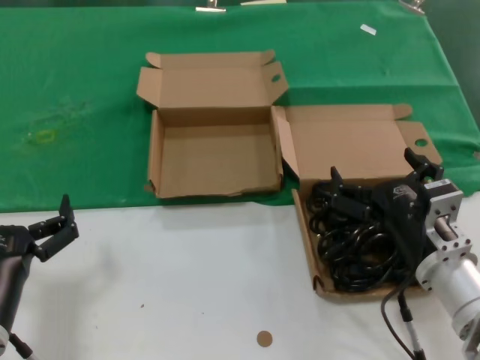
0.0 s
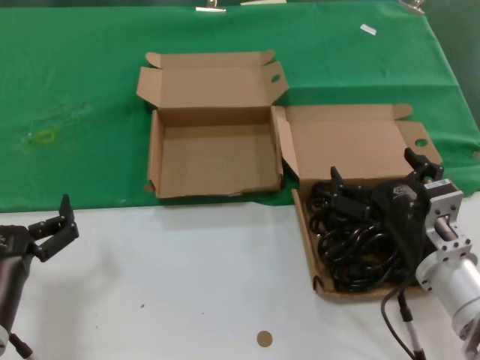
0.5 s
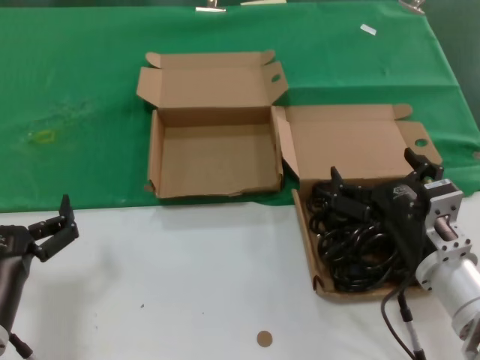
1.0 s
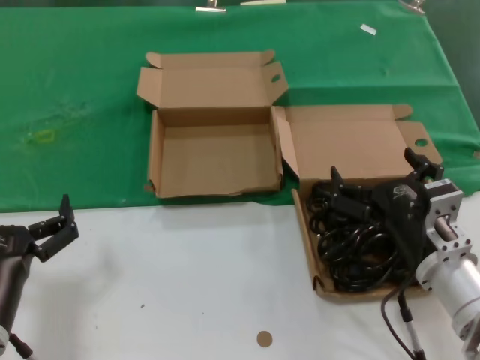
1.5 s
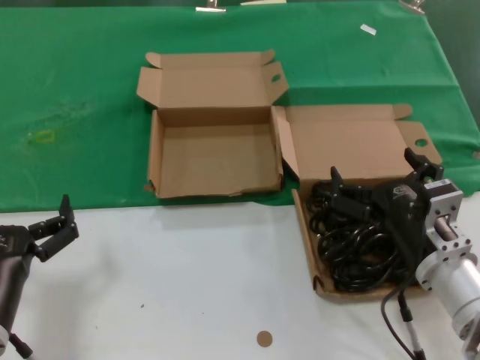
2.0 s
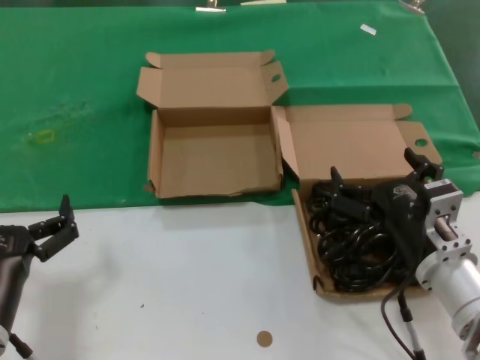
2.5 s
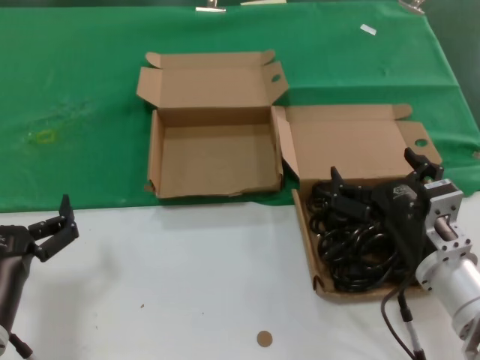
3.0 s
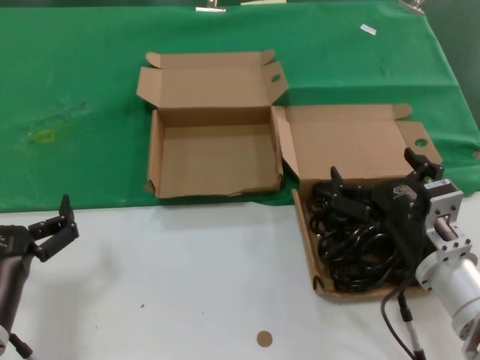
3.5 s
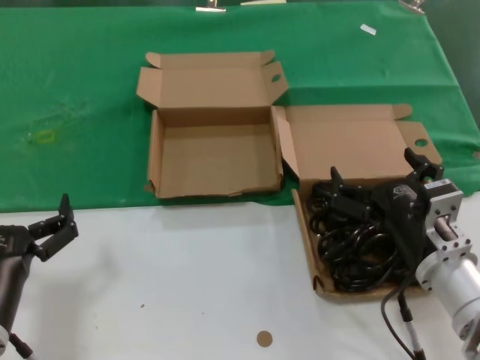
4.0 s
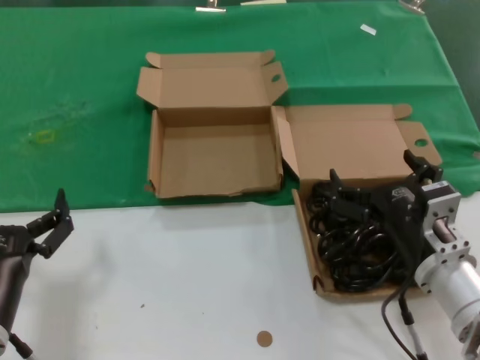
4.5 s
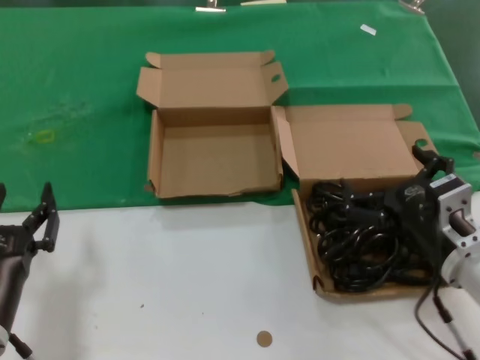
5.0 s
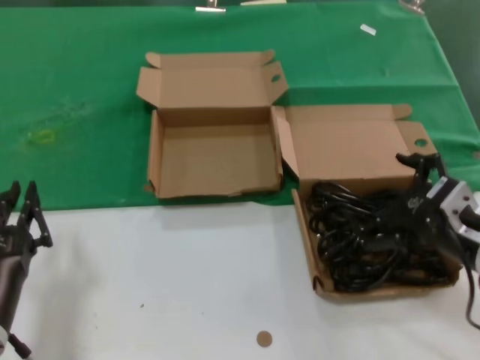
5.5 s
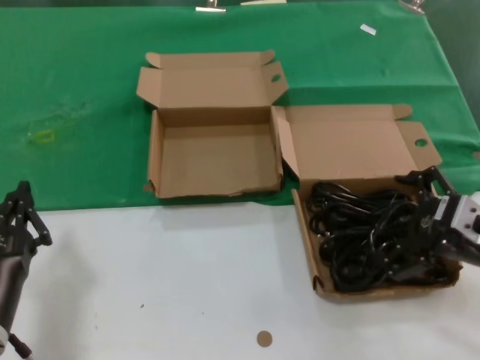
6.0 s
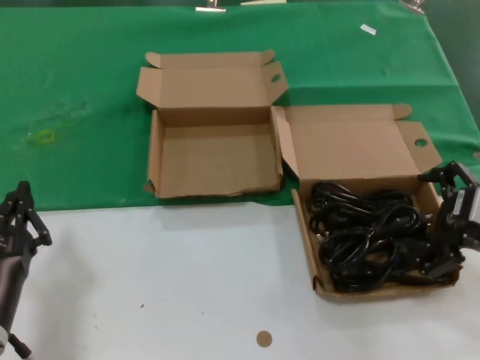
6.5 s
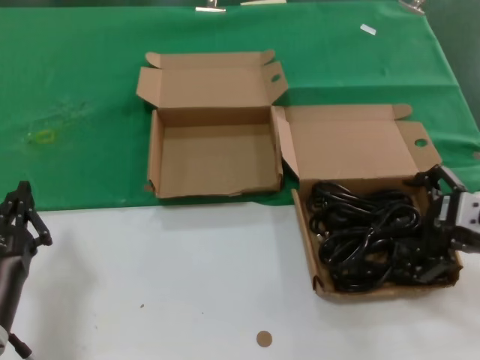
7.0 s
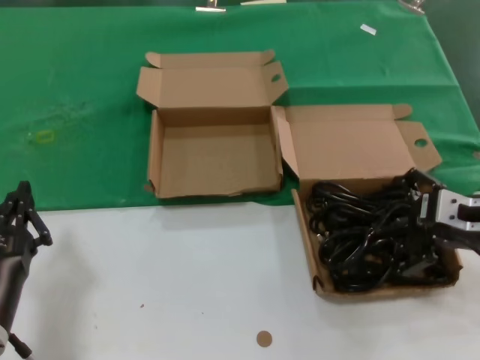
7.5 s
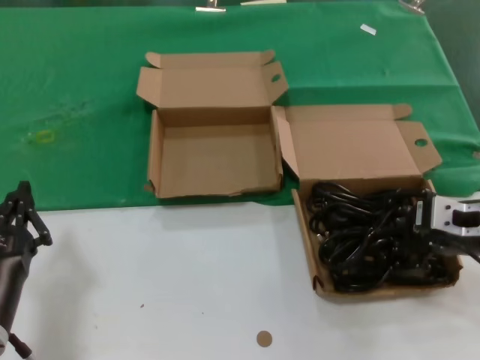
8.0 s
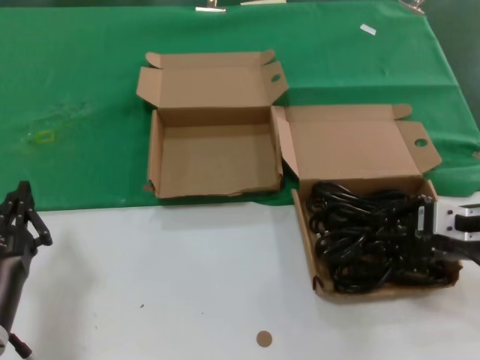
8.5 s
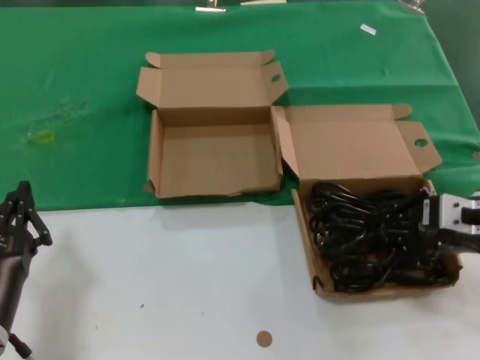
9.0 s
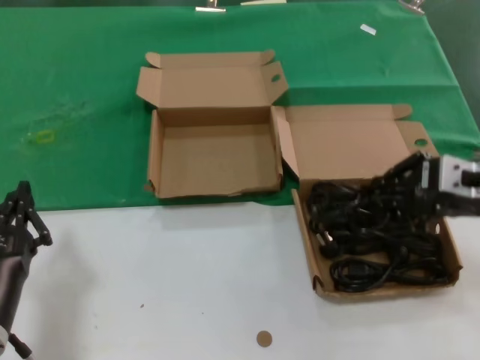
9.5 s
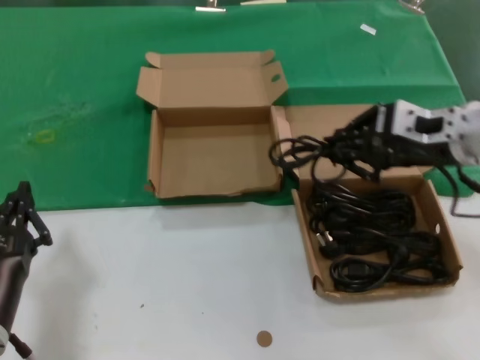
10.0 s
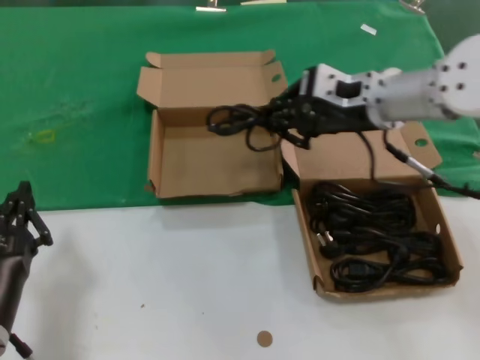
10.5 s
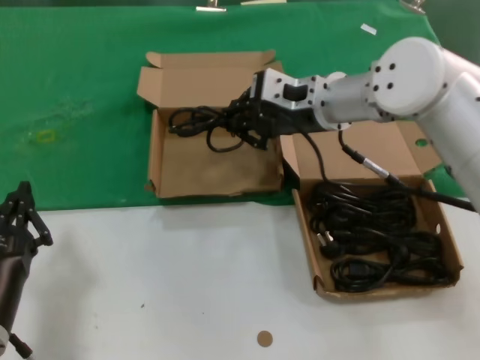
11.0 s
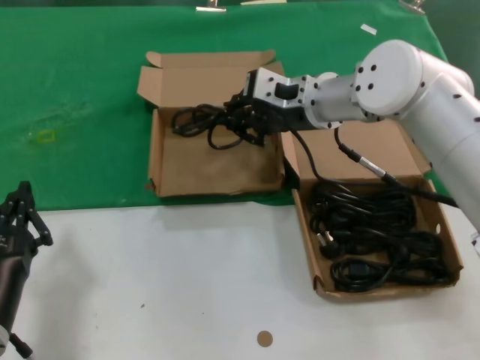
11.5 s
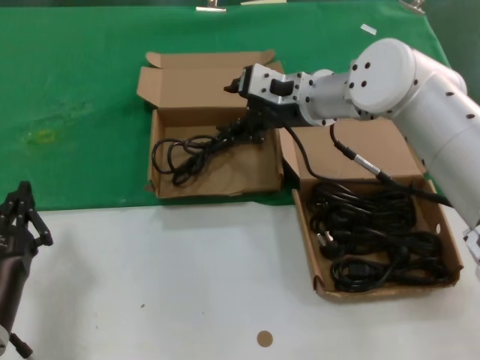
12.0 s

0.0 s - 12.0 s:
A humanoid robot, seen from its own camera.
Task of the whole recording: take the parts from the box containing them and put them into an empty box.
Step, 0.0 s - 8.0 s: Grasp the data cable.
Step, 8.5 s - 11.5 s: Place the data cable in the another box.
0.0 s - 4.0 s: Both hands stay put.
4.0 s - 6.0 s: The right hand shifts about 10 cm to the right and upward.
6.0 s - 8.0 s: The right hand shifts by roughly 5 cm.
8.0 s - 10.0 s: The right hand heads upward and forward, covering some 10 cm.
10.0 s - 12.0 s: The right hand is displaced to the left and forward by approximately 20 cm.

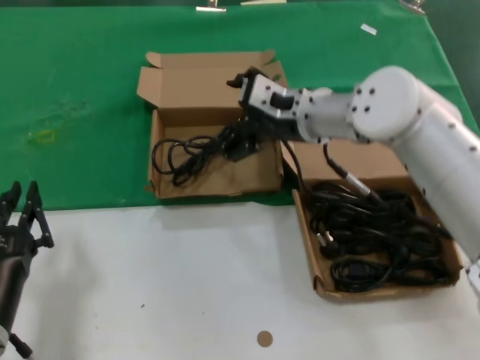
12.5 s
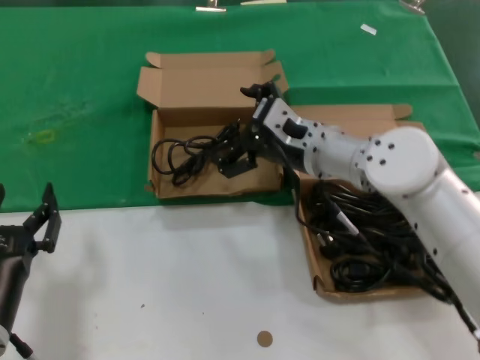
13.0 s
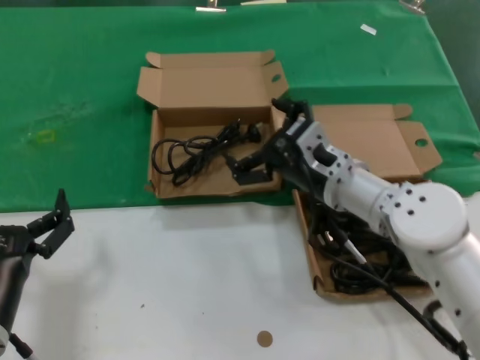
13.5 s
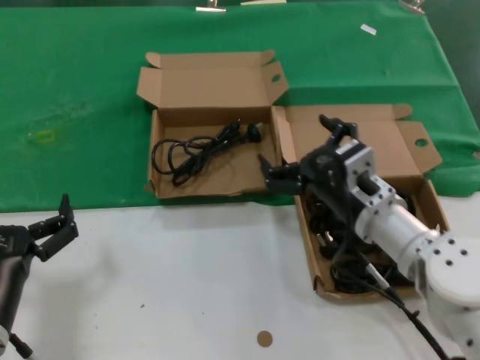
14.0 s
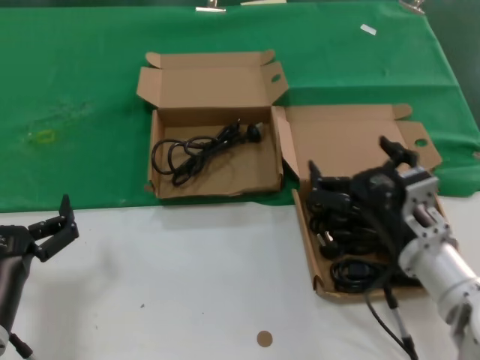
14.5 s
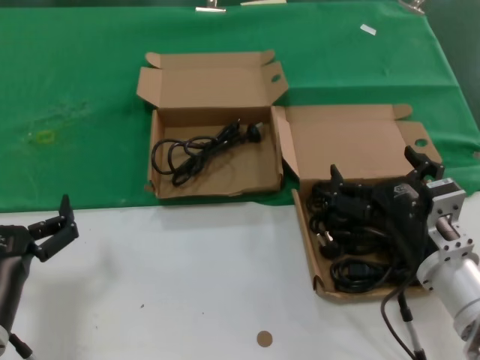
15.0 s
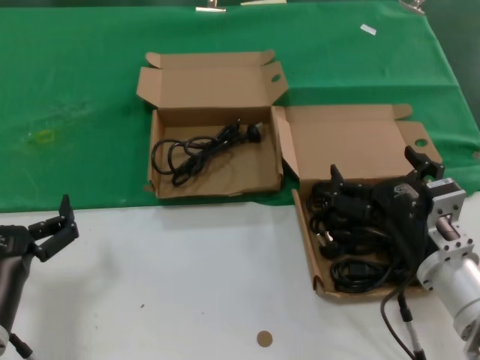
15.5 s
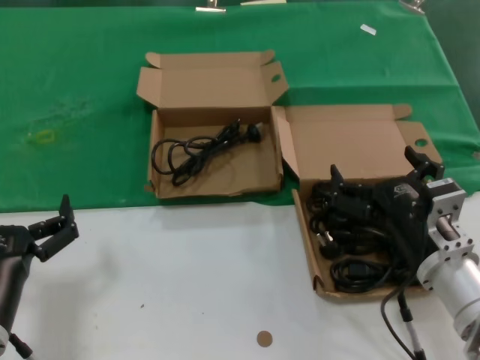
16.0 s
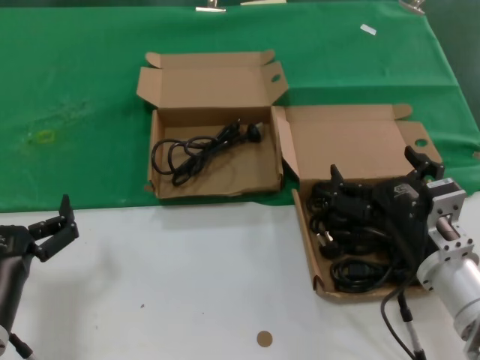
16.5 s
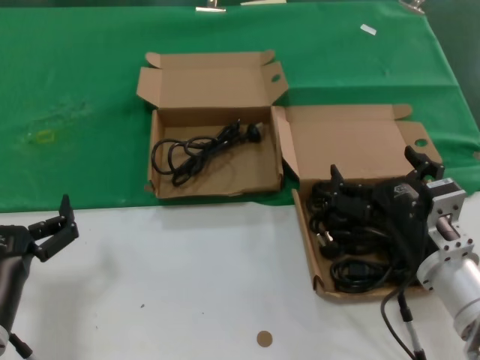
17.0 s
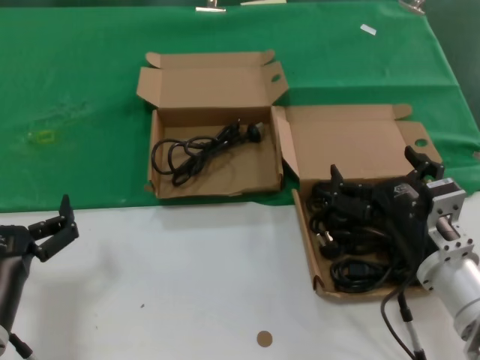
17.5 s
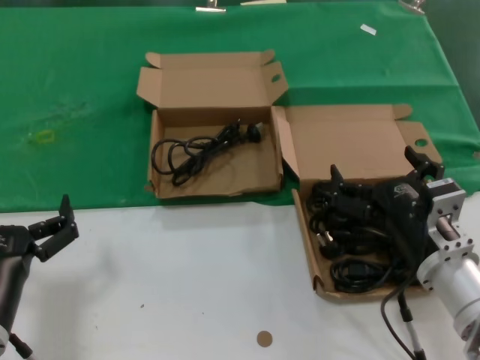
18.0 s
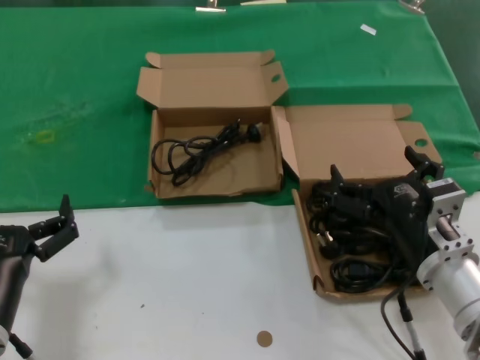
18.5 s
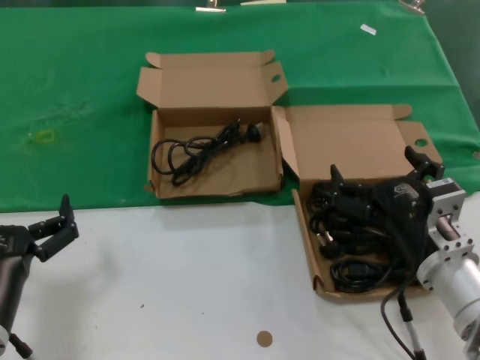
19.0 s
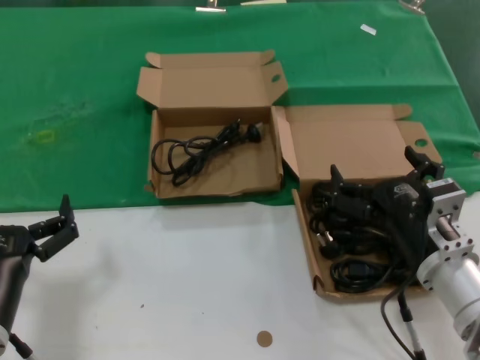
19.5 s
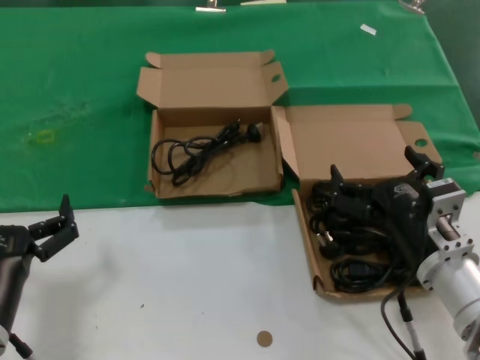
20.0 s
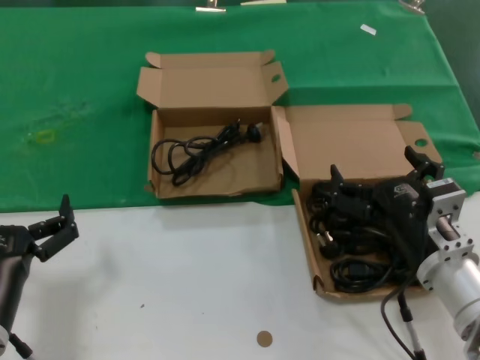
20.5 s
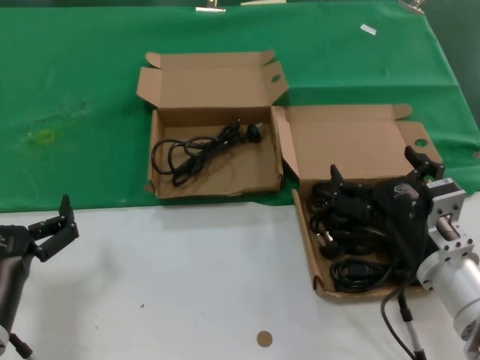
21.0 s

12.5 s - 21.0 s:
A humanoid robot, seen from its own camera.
Task of the whole recording: take the parts from the box containing them and put them into an empty box.
12.5 s - 14.5 s: The right hand is displaced backward, downward and to the right by some 25 cm.
14.5 s - 16.5 s: The hands make only small movements.
16.5 s - 21.0 s: The two hands keep their place.

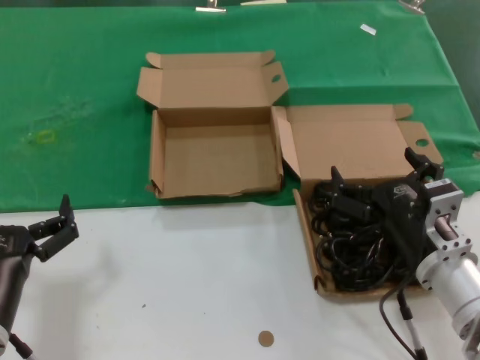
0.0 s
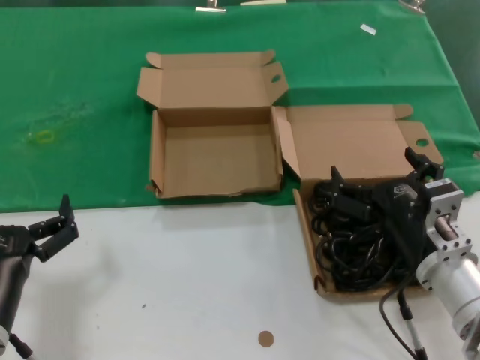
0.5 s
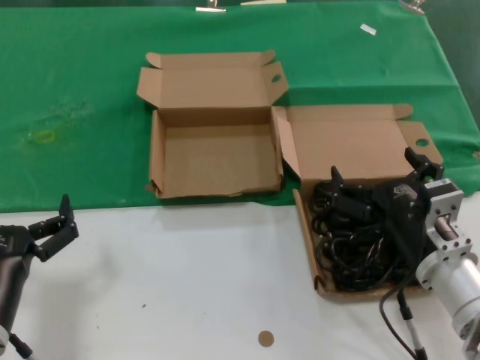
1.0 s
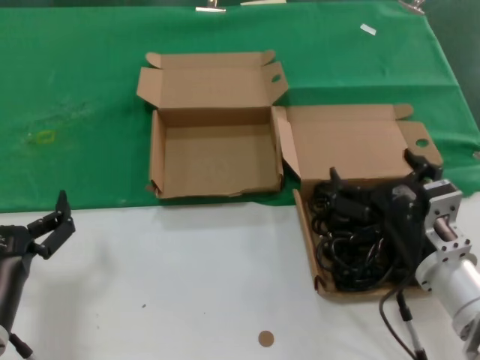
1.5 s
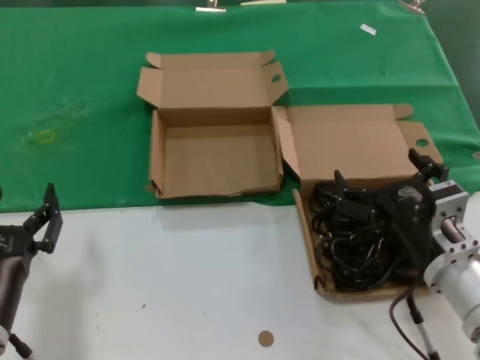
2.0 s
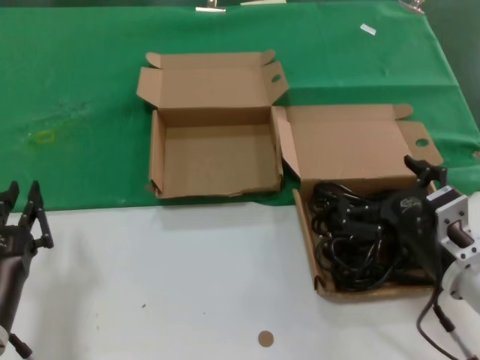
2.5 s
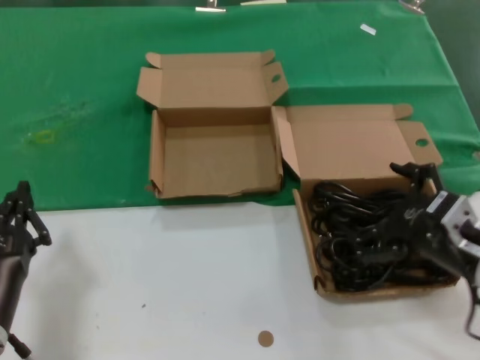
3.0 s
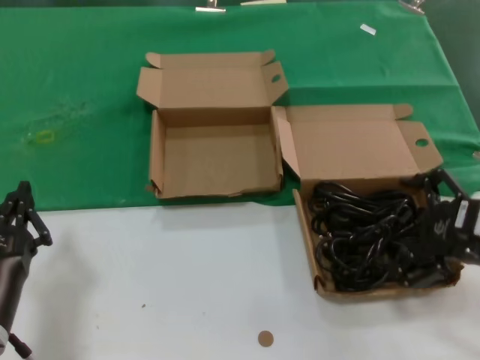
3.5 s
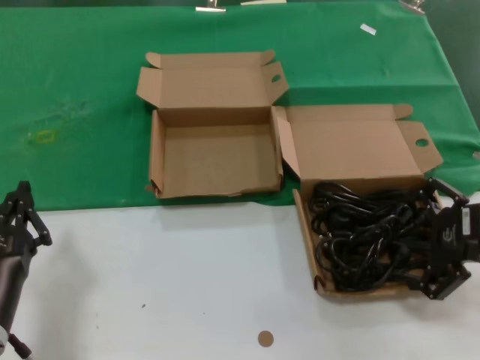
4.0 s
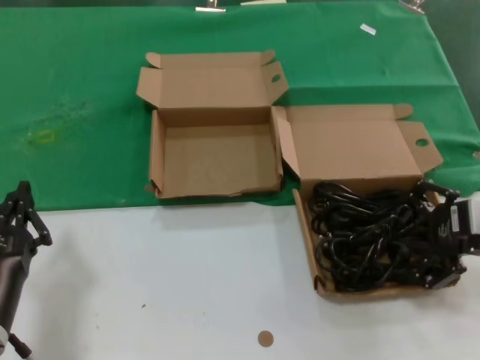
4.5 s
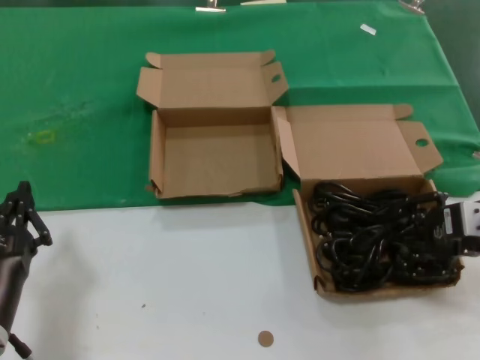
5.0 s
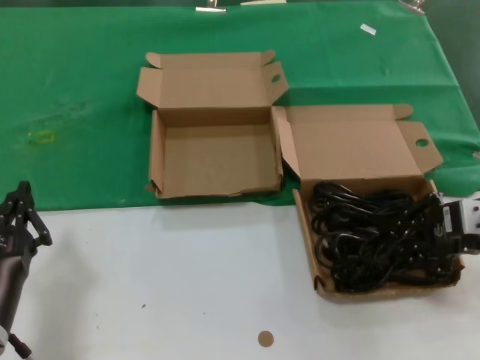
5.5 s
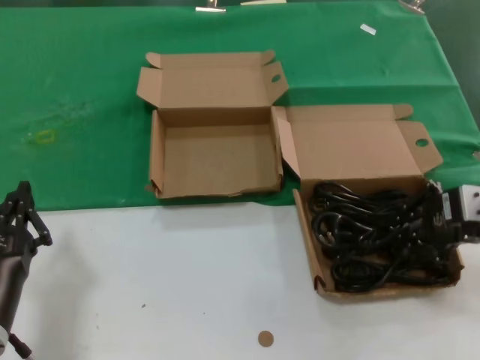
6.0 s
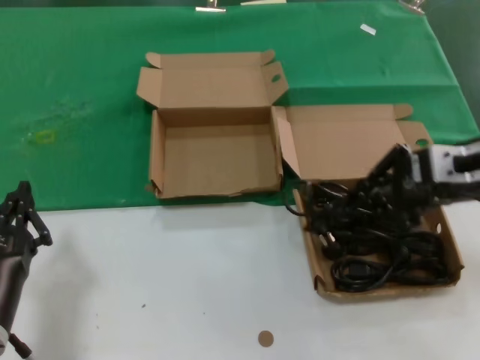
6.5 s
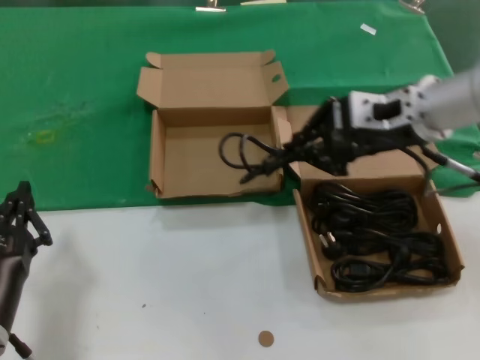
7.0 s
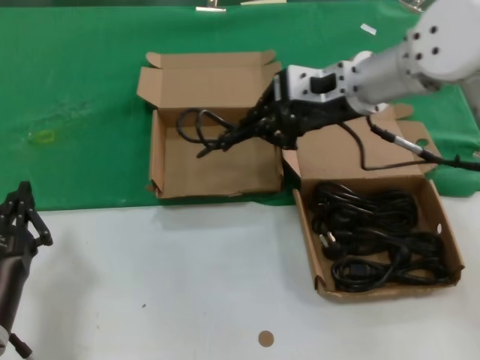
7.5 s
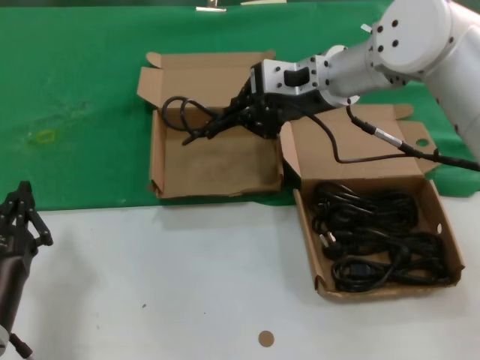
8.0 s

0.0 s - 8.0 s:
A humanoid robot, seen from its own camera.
Task of the whole recording: take the parts from the box containing them and put them into an empty box.
Step, 0.0 s - 5.0 s: Grasp the data cable.
0.0 s - 2.0 s: The two hands keep their place.
2.0 s - 4.0 s: The right hand is displaced to the right and upward by some 15 cm.
4.0 s - 6.0 s: The hands move only a little.
6.0 s - 8.0 s: The right hand shifts about 25 cm to the left, forward and upward.
